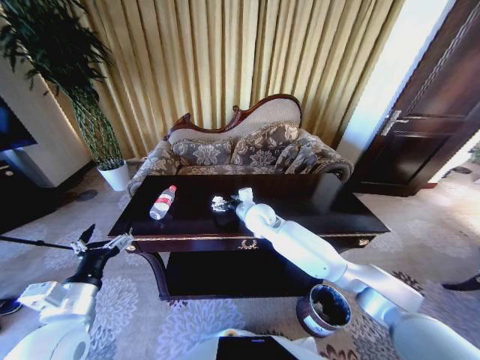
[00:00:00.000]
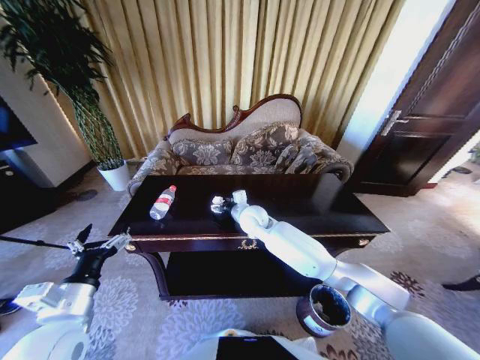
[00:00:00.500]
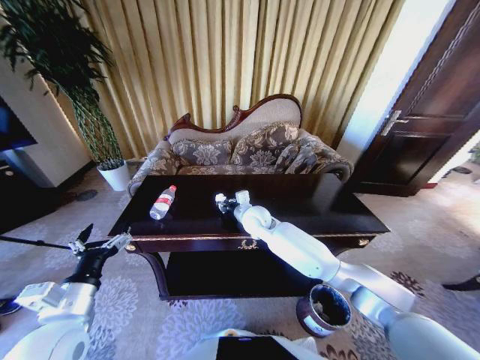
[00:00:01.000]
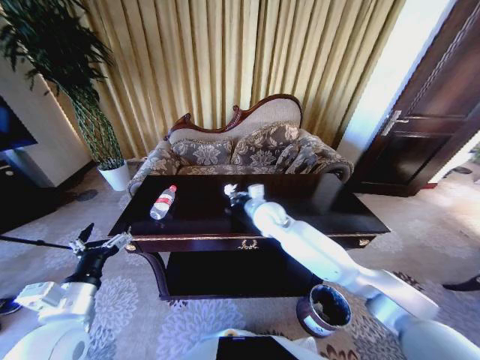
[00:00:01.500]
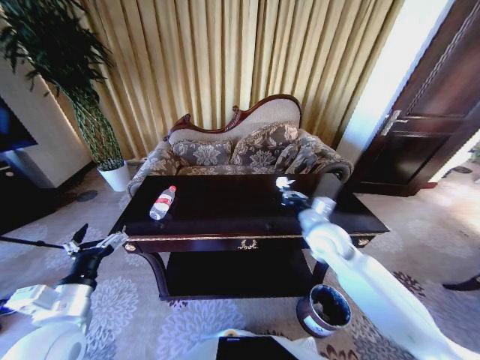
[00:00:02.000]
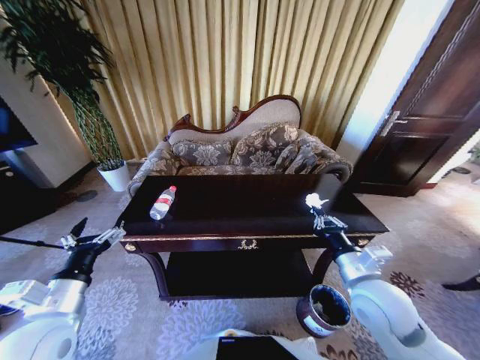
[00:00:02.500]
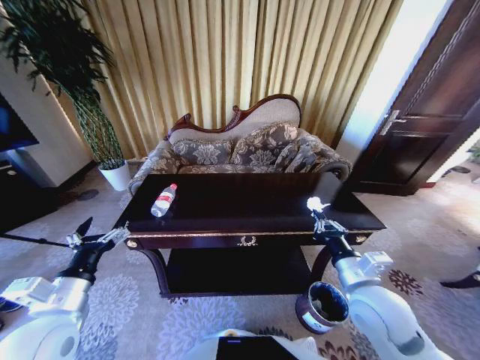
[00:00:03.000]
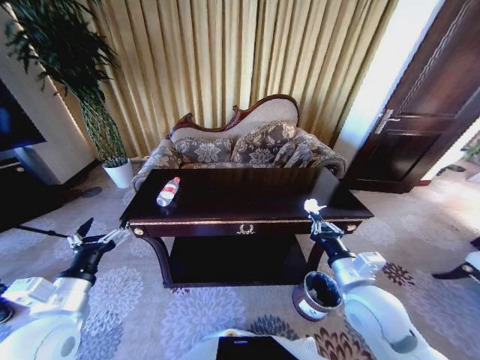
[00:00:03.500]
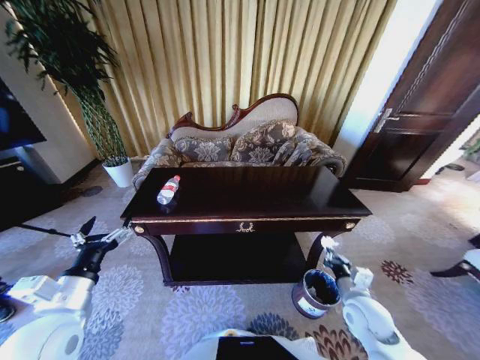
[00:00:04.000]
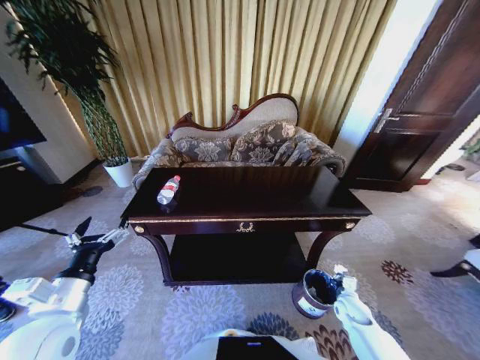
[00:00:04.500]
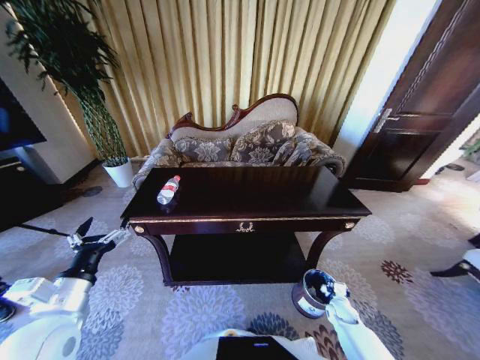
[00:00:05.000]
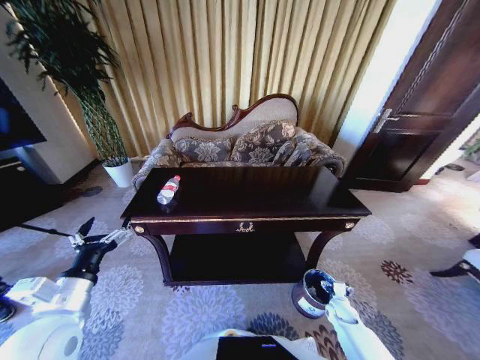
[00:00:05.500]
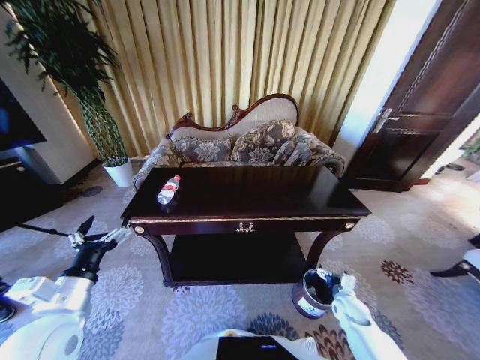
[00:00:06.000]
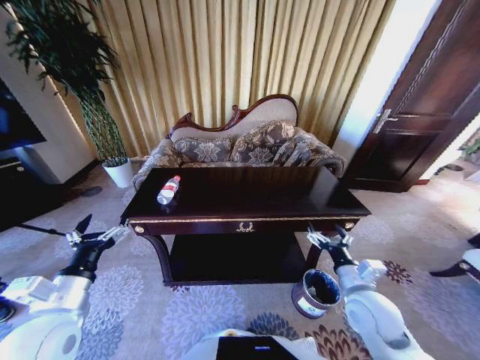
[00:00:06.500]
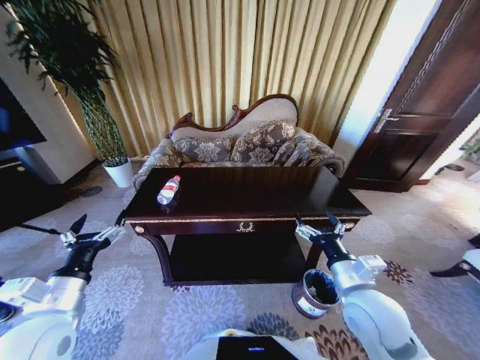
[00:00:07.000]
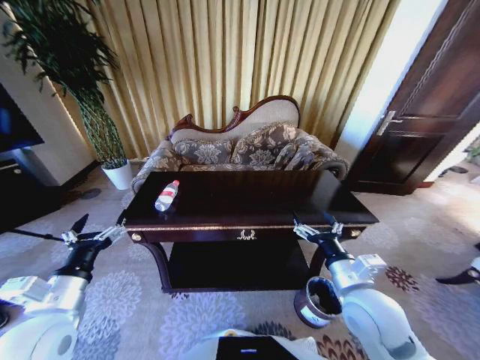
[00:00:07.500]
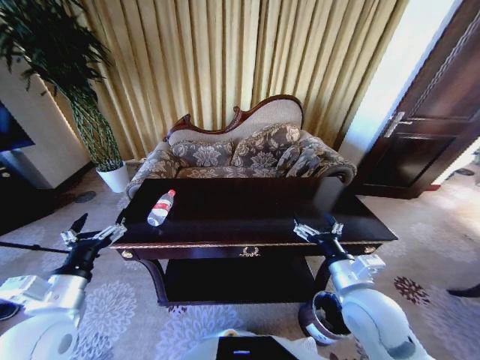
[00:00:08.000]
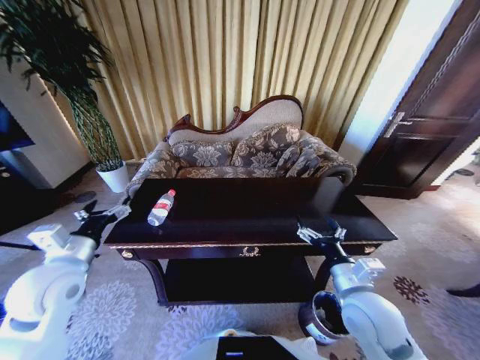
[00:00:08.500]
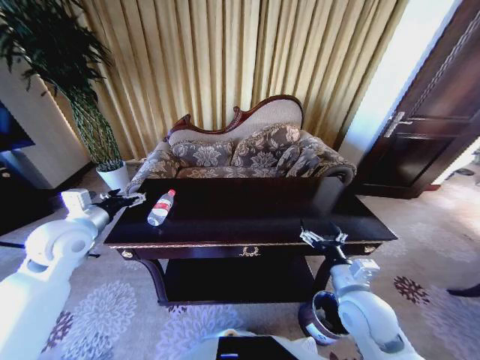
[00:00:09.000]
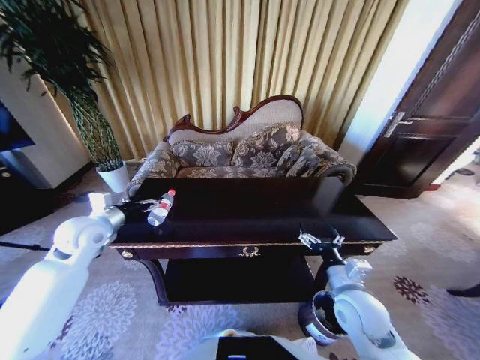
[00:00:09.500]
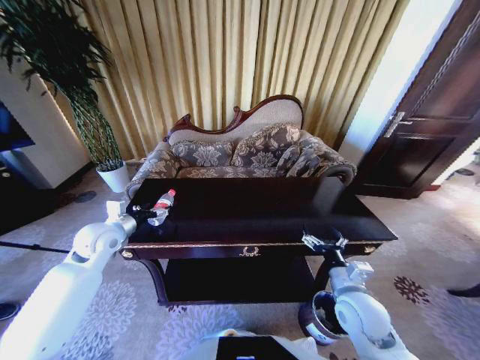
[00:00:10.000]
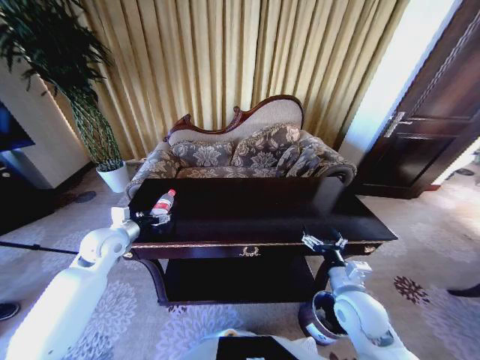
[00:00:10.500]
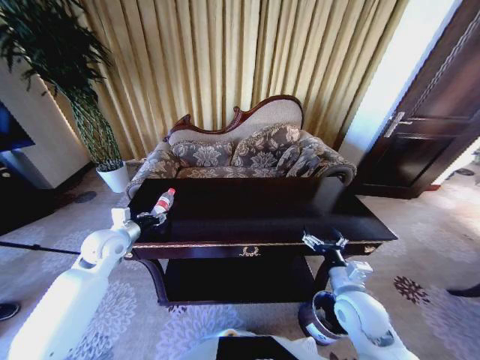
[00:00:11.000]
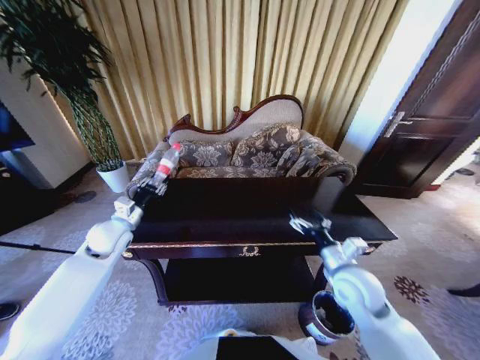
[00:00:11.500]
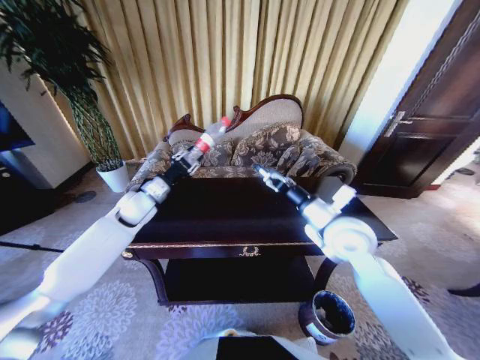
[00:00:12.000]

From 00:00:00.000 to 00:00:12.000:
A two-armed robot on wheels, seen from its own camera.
Task of the whole recording: Move to the front of the table and place the trash on the table into the trash bin.
From 00:00:00.000 to 00:00:02.000: The right gripper is displaced to the right and backward by approximately 20 cm, and closes up.
From 00:00:02.000 to 00:00:04.000: The right gripper heads backward, downward and to the right, covering about 20 cm.
From 00:00:04.000 to 00:00:06.000: The right gripper goes about 15 cm downward and to the right, and opens its fingers.
From 00:00:06.000 to 00:00:08.000: The right gripper moves upward and to the left, approximately 30 cm.
From 00:00:08.000 to 00:00:10.000: The right gripper is displaced downward by some 5 cm, while the left gripper is displaced forward by about 20 cm.
From 00:00:10.000 to 00:00:12.000: The right gripper shifts about 20 cm upward and forward. Meanwhile the left gripper moves forward and to the right, some 10 cm, and closes its fingers.

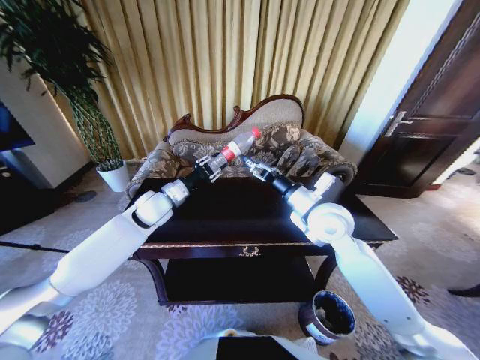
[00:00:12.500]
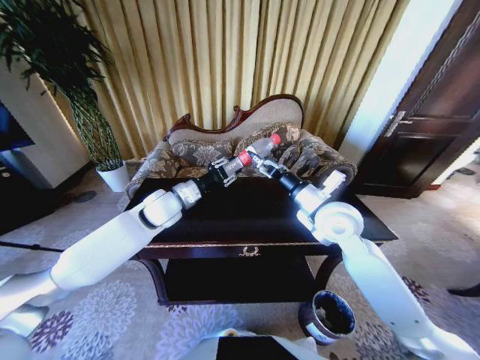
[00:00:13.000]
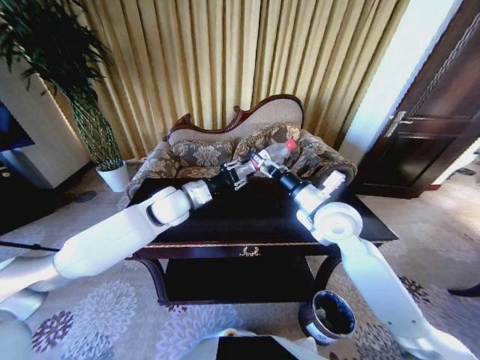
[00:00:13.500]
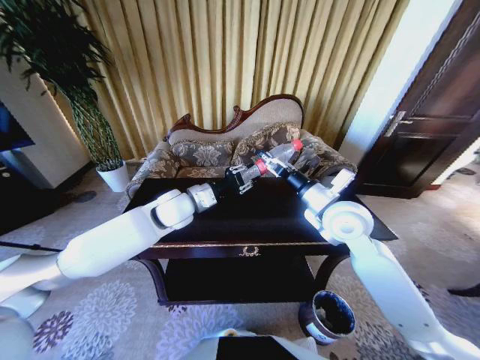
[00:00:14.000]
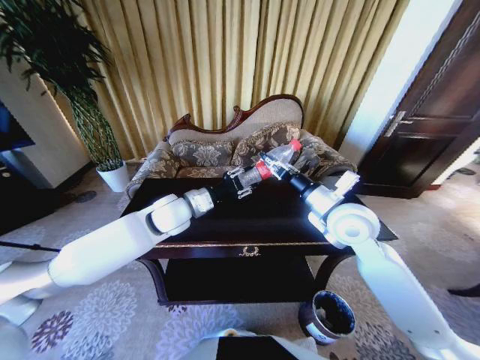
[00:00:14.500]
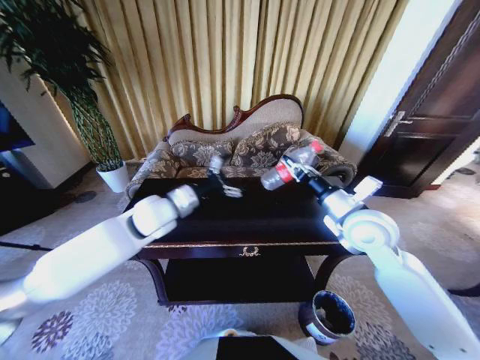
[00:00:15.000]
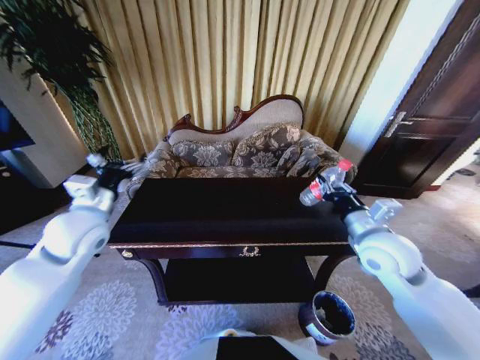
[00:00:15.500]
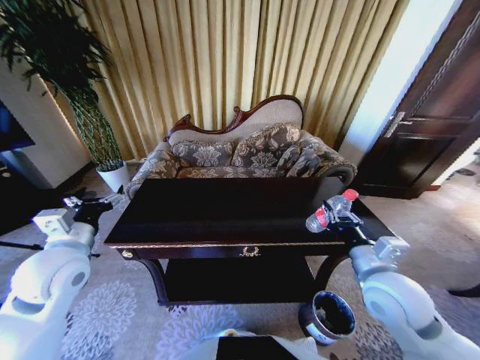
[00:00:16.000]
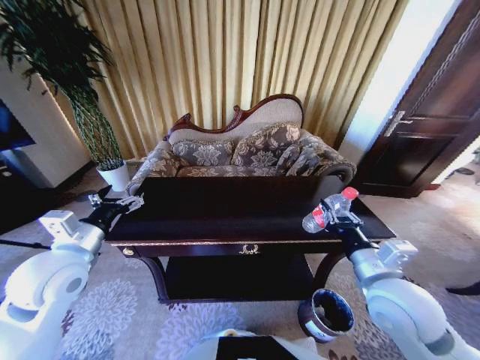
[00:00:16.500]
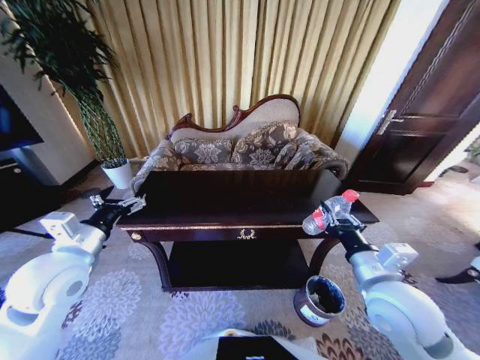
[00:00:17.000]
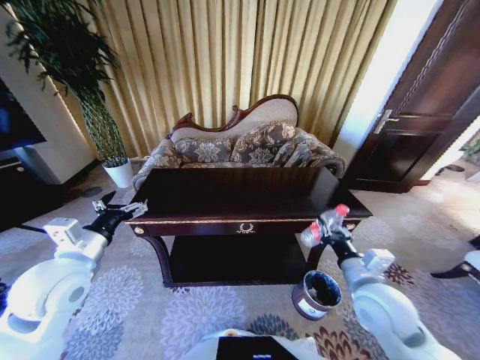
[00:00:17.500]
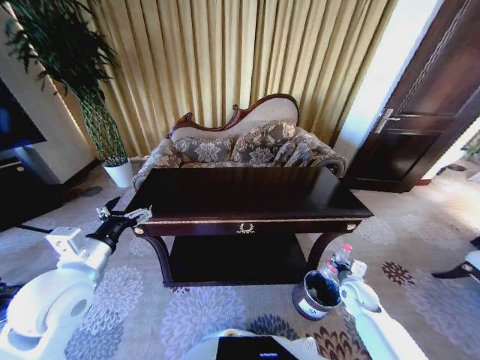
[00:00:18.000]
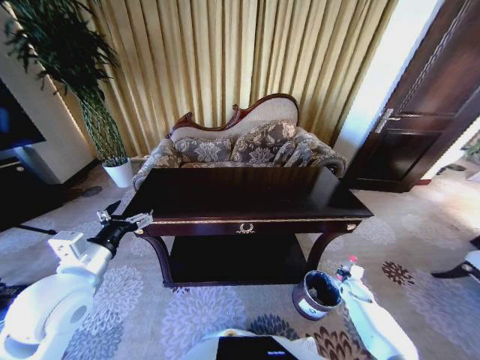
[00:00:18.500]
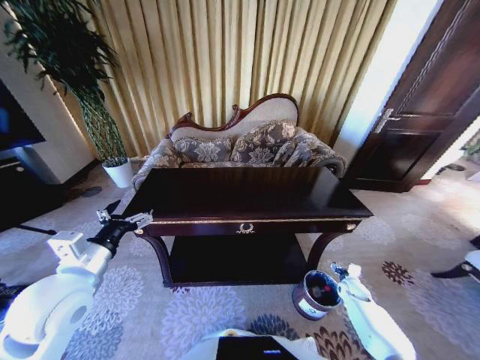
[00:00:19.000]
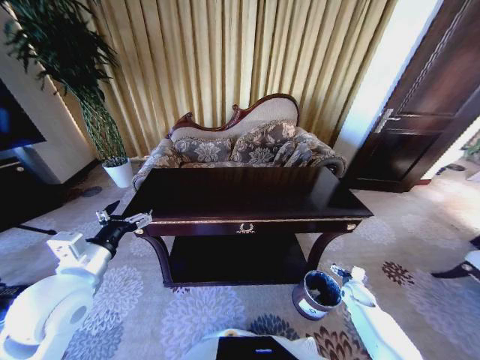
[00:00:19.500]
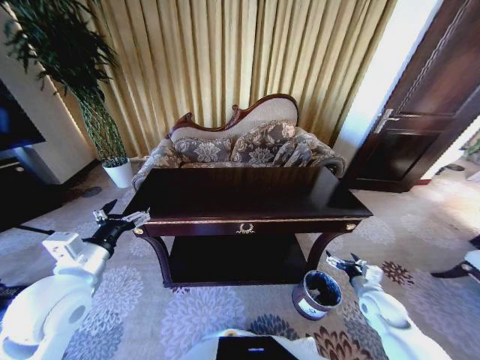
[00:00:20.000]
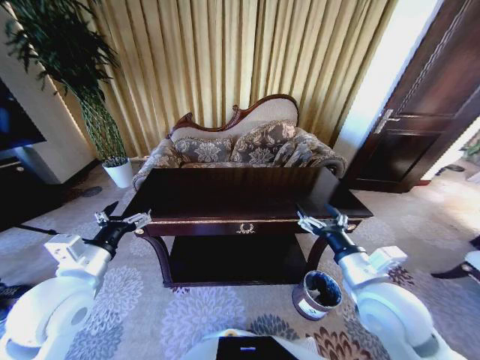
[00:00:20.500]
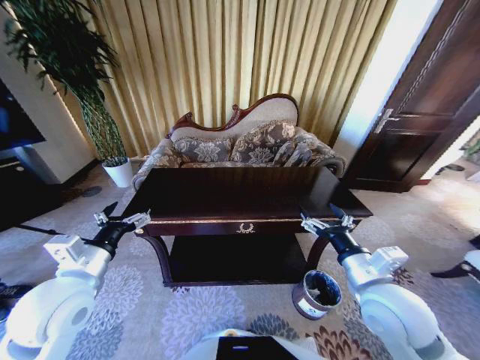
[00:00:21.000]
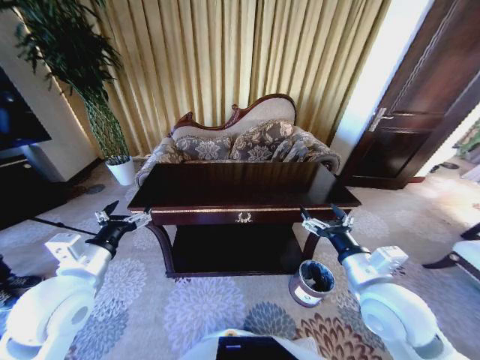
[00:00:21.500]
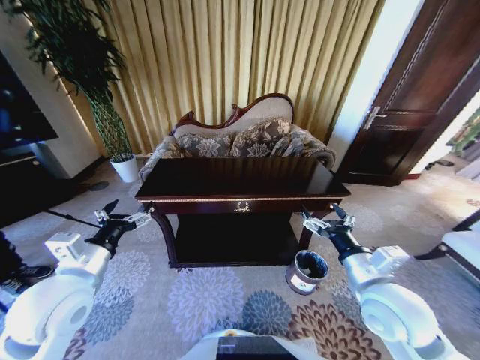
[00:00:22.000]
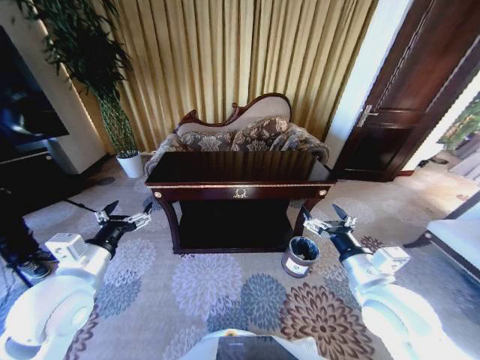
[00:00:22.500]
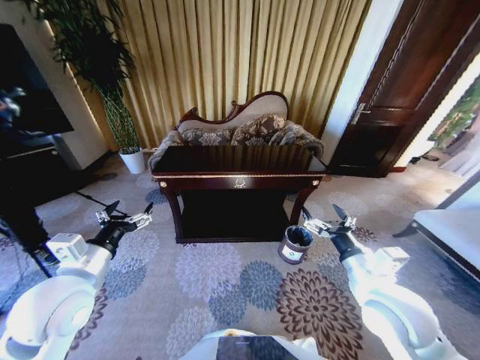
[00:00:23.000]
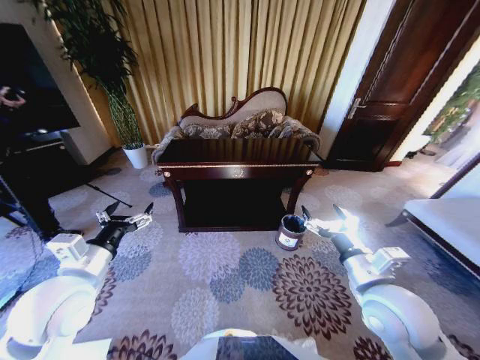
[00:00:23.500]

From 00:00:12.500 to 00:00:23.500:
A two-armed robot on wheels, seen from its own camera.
Task of the whole recording: Move to the front of the table and place the trash on the table into the trash bin.
From 00:00:12.500 to 00:00:14.500: The left gripper travels to the right by about 5 cm. The right gripper closes up.
From 00:00:14.500 to 00:00:16.000: The right gripper shifts about 15 cm backward and downward. The left gripper is displaced to the left and backward by roughly 25 cm, and opens its fingers.
From 00:00:16.000 to 00:00:18.000: The right gripper heads downward and to the right, covering roughly 30 cm, while the left gripper changes place by some 5 cm.
From 00:00:18.000 to 00:00:20.000: The right gripper travels upward by roughly 5 cm, and opens.
From 00:00:20.000 to 00:00:21.500: The right gripper travels upward and to the left by roughly 25 cm.

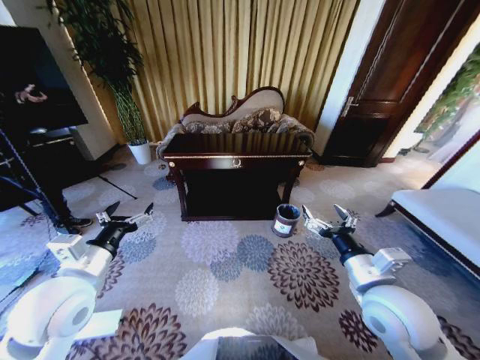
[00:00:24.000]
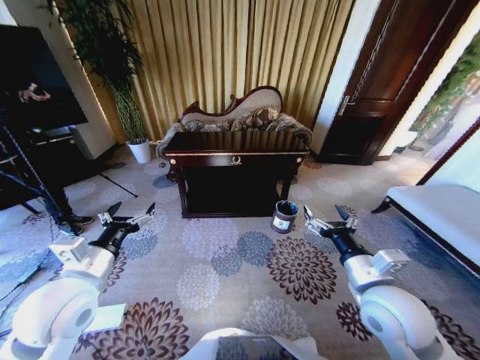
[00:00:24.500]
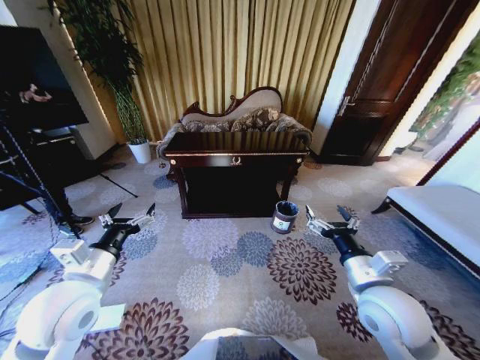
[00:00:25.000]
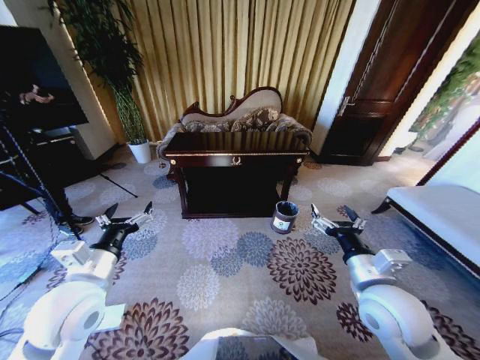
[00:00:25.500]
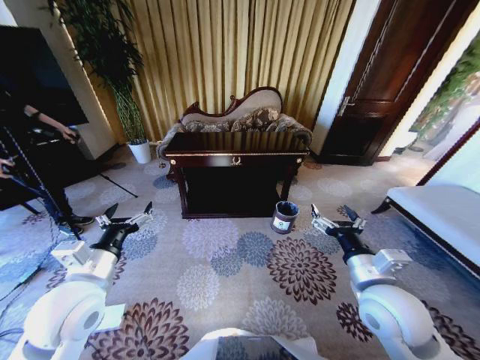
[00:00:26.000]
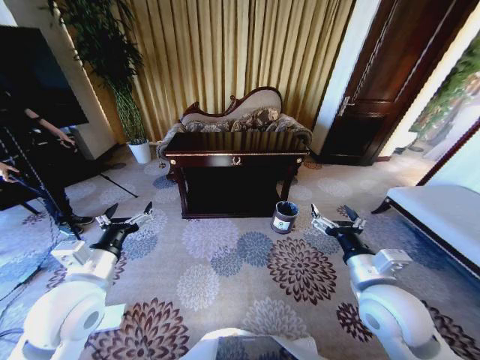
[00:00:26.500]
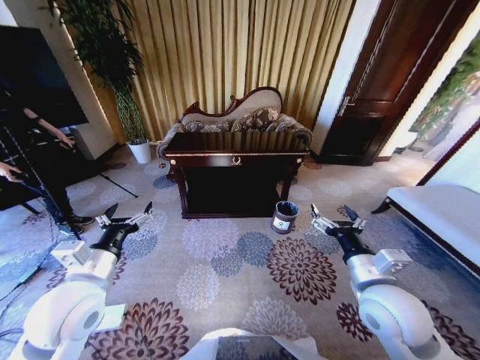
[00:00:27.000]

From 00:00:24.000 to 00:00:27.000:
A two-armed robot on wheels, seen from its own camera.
Task of the whole recording: Move to the front of the table and place the trash on the table into the trash bin.
From 00:00:25.500 to 00:00:27.000: Both grippers stay about where they are.
